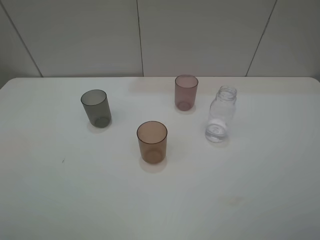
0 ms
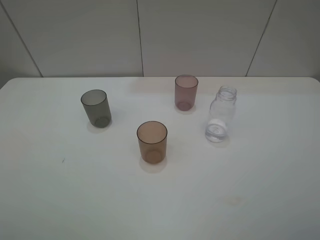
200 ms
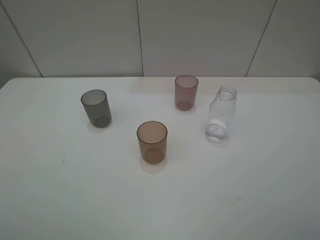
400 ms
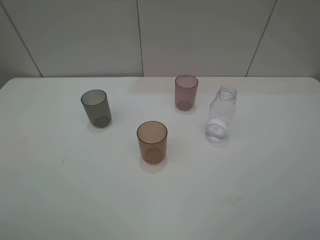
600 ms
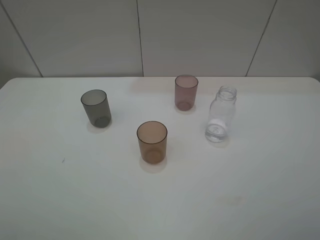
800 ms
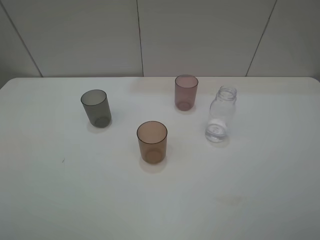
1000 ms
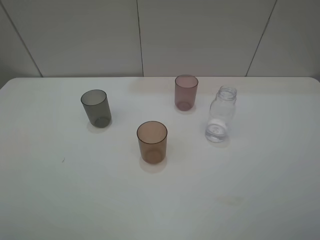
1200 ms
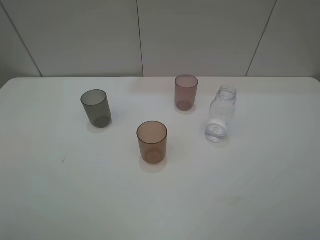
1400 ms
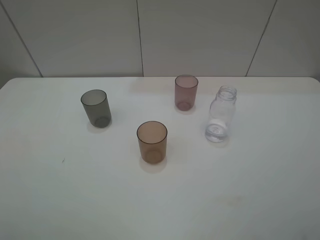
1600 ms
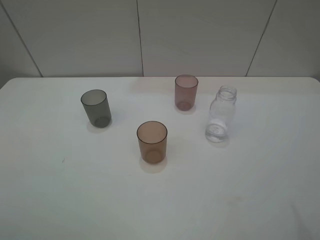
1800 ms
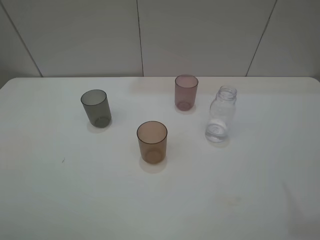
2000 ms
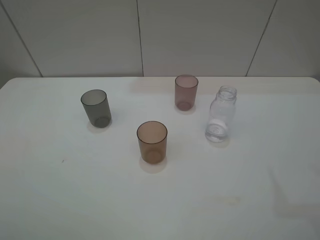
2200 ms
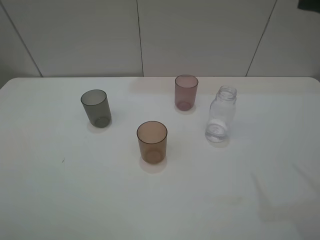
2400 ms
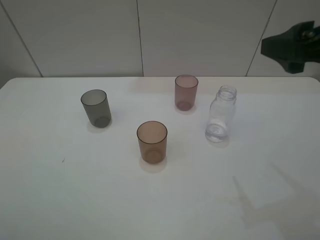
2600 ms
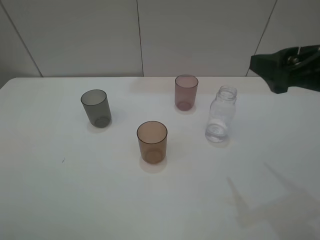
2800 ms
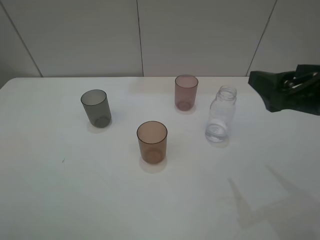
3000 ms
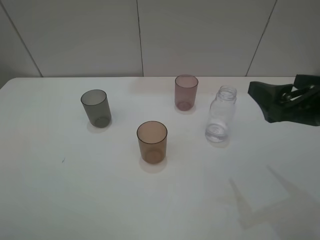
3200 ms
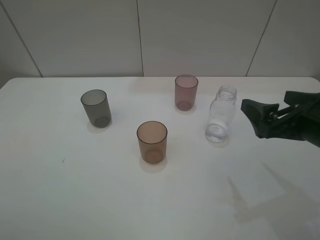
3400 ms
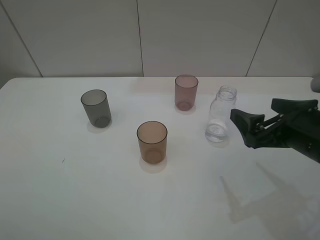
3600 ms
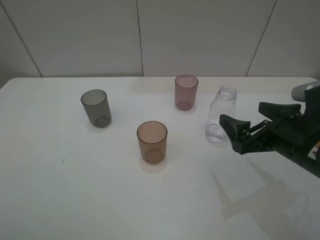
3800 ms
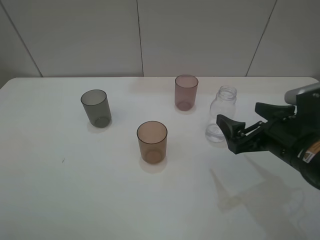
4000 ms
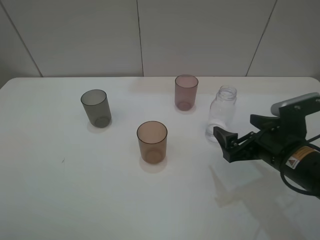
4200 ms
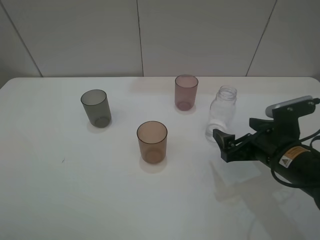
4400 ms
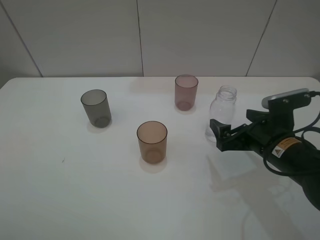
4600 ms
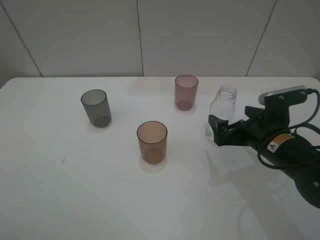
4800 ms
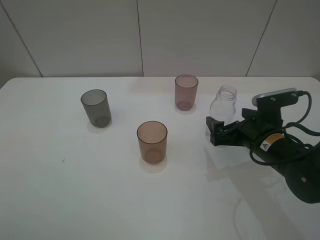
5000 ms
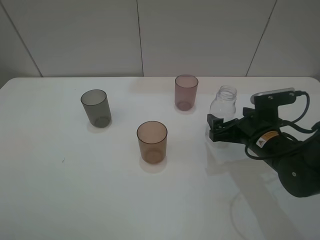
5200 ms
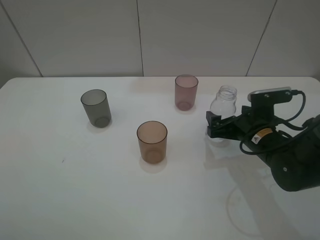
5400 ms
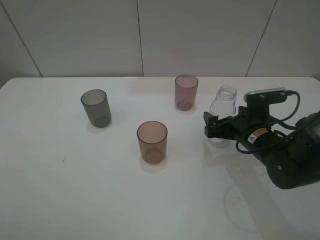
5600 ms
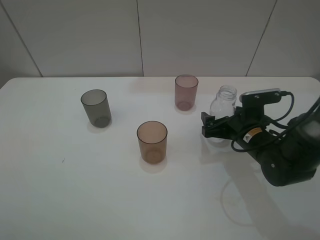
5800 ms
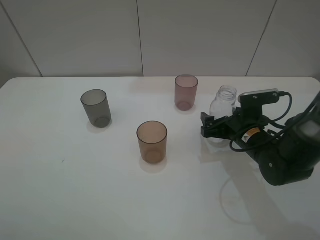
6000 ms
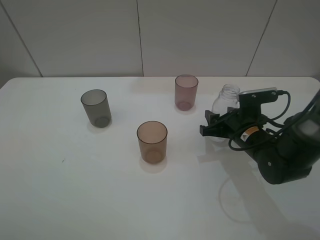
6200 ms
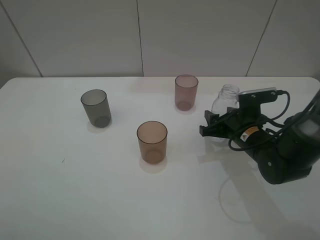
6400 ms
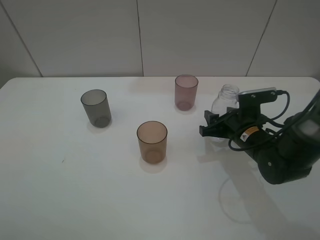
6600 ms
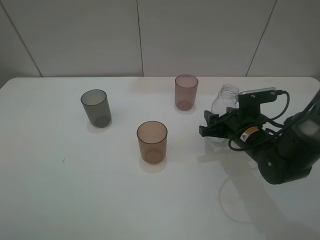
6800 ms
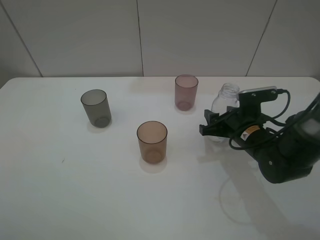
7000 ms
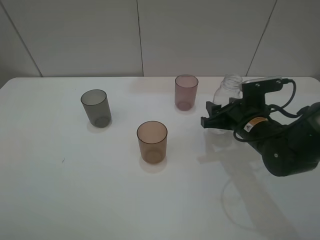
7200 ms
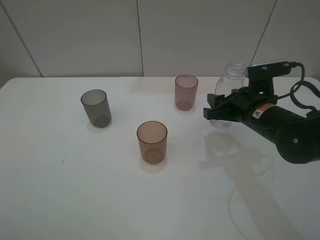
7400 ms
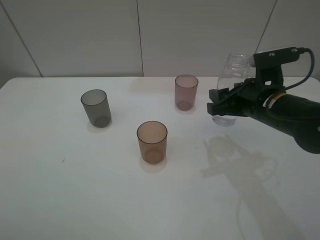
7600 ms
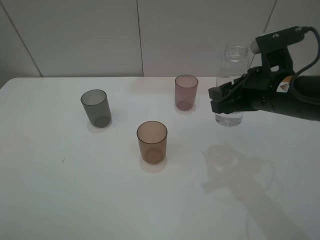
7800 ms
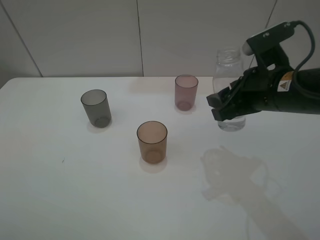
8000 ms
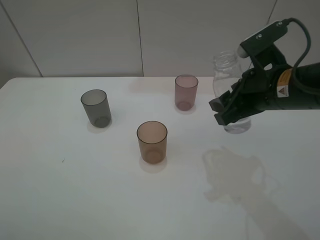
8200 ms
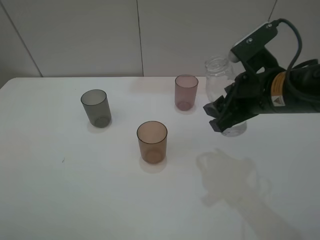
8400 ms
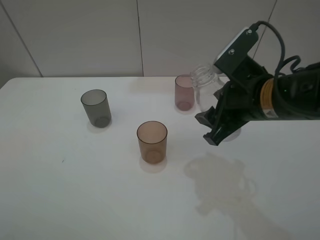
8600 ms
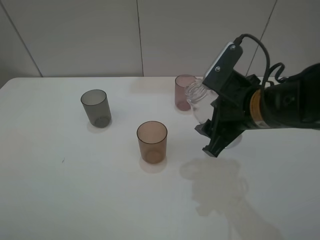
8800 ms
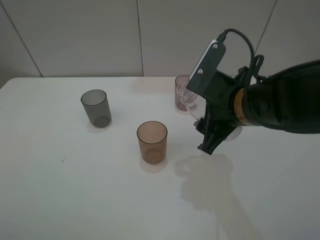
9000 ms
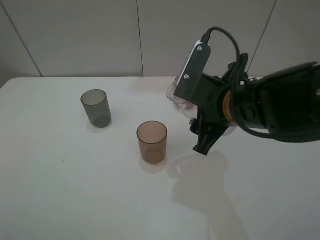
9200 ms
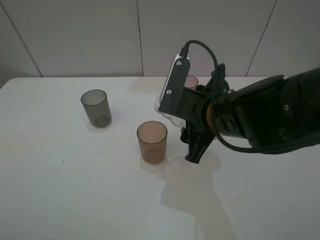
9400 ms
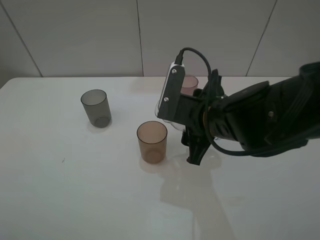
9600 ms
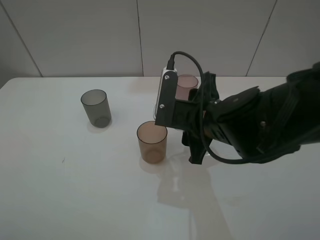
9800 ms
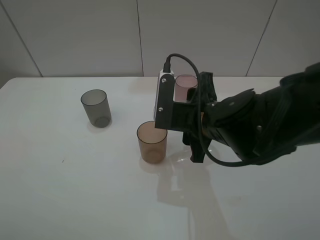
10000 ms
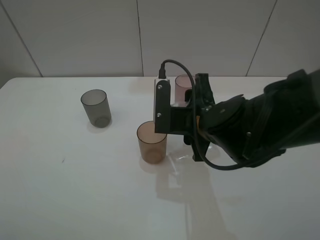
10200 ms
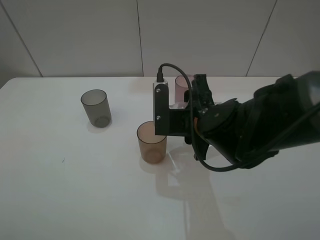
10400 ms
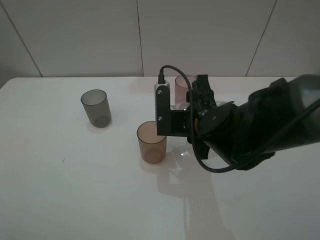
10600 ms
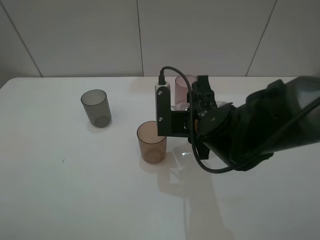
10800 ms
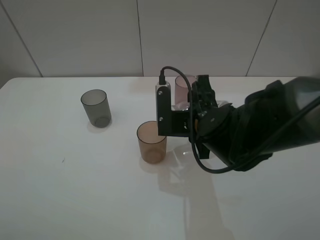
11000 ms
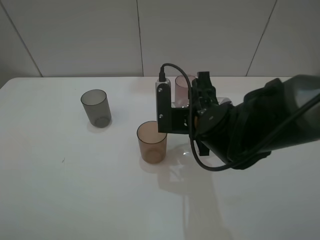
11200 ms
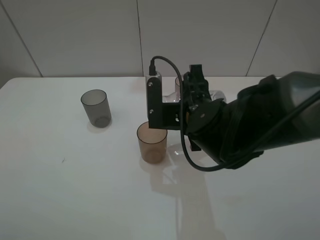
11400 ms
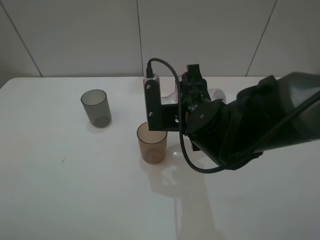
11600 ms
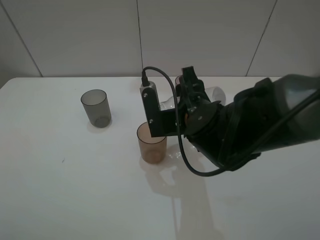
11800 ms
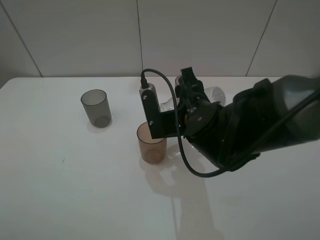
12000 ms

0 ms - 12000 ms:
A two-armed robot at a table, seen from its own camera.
Task of the whole recording: pick up the bottle filled with water and pour water into the middle cup of the three cups.
Step, 0 ms - 6800 ms: Grasp the transparent bottle with the right gripper.
1600 ms - 3000 ms: The right gripper heads forward, downward and to the left, covering some 15 cm.
3000 ms - 4400 ms: The right gripper is displaced downward by about 15 cm.
4400 ms - 6000 ms: The right gripper heads forward, covering about 5 cm.
6000 ms - 7600 ms: The right gripper travels upward by roughly 10 cm, and closes.
7600 ms - 9000 ms: The right gripper travels to the left by approximately 5 cm.
9000 ms - 10400 ms: The right gripper moves about 5 cm.
10400 ms - 12000 ms: There are only small adjustments of the grippers.

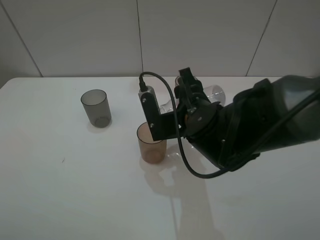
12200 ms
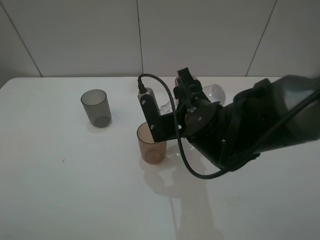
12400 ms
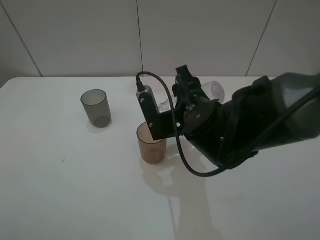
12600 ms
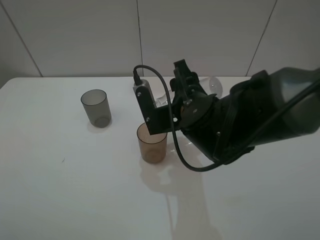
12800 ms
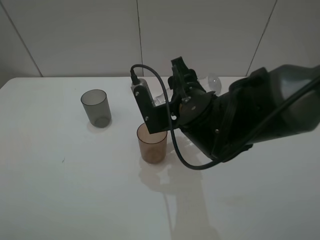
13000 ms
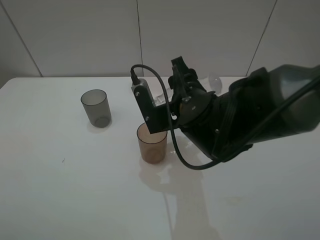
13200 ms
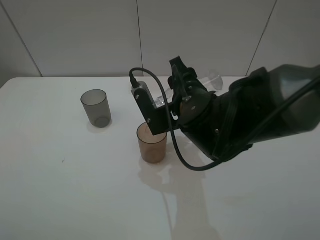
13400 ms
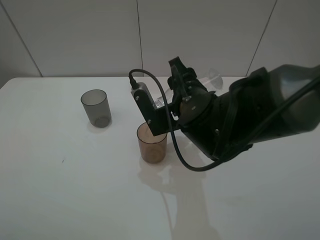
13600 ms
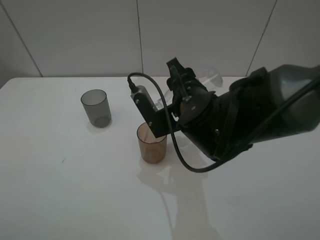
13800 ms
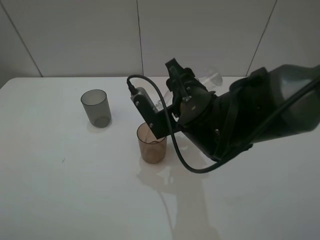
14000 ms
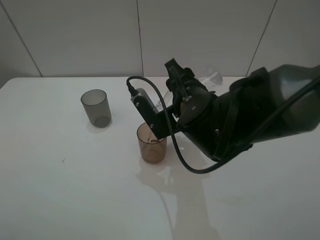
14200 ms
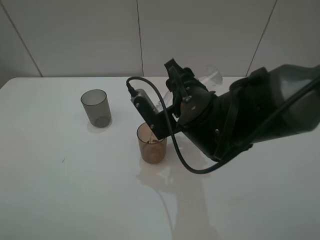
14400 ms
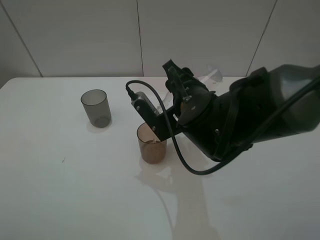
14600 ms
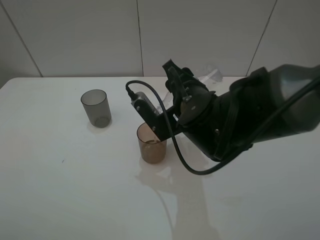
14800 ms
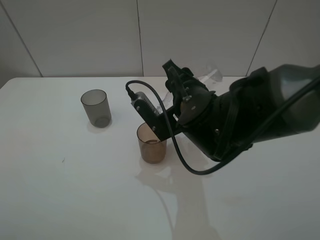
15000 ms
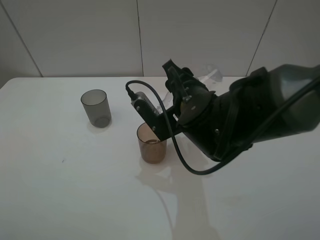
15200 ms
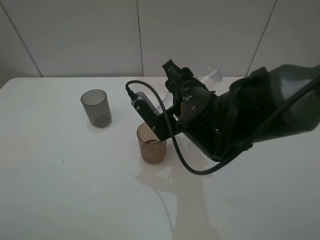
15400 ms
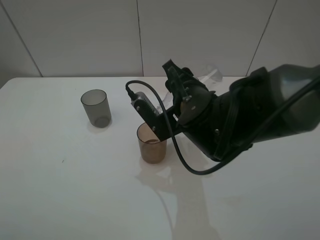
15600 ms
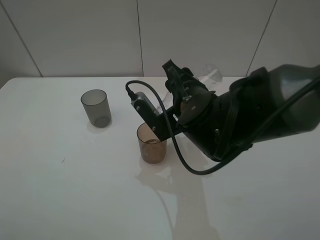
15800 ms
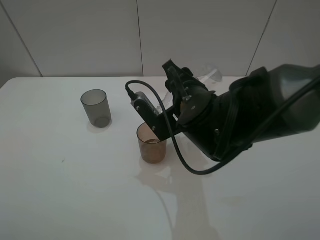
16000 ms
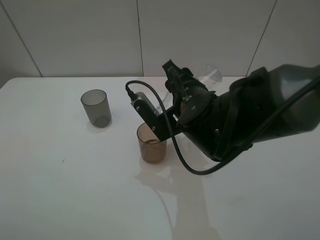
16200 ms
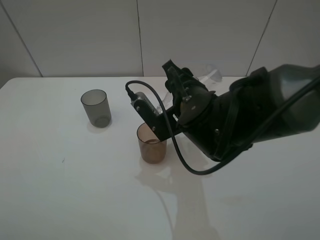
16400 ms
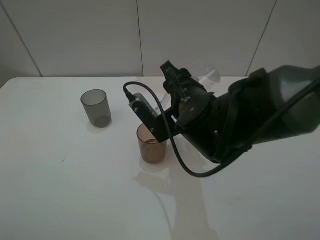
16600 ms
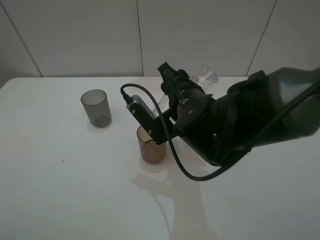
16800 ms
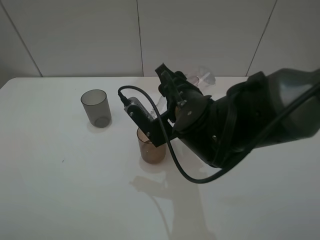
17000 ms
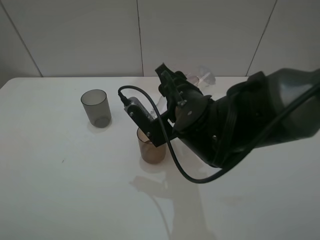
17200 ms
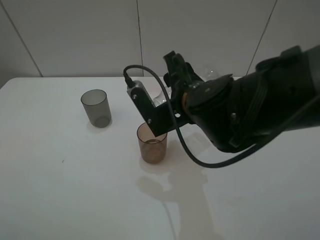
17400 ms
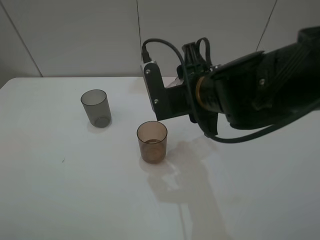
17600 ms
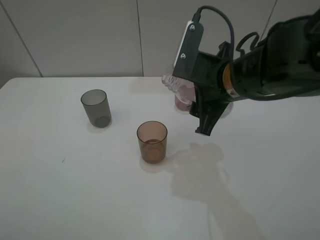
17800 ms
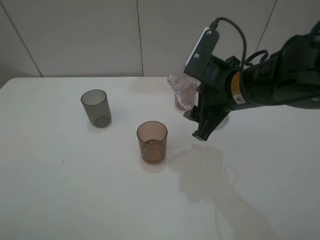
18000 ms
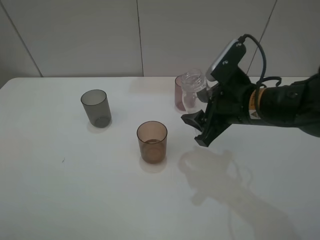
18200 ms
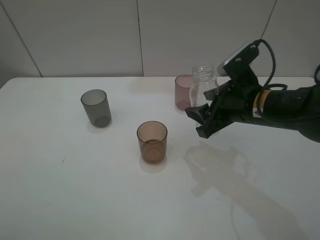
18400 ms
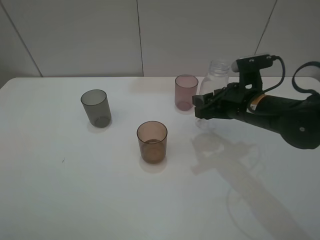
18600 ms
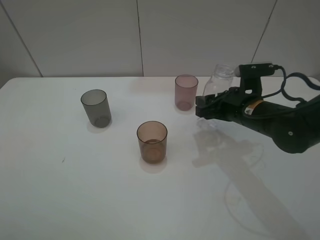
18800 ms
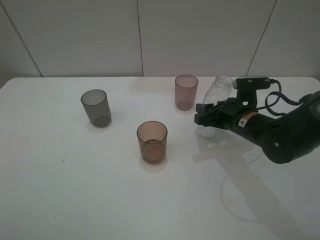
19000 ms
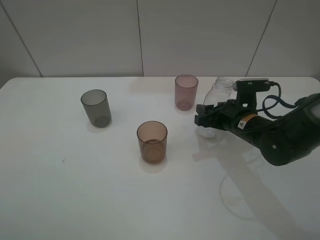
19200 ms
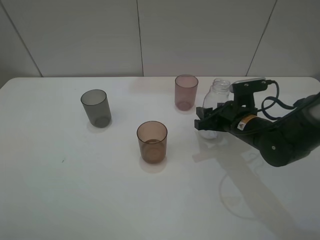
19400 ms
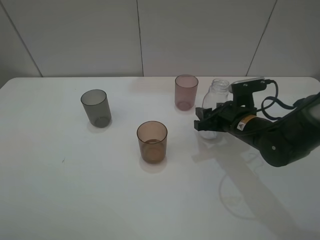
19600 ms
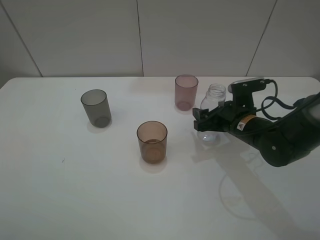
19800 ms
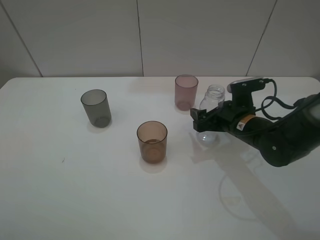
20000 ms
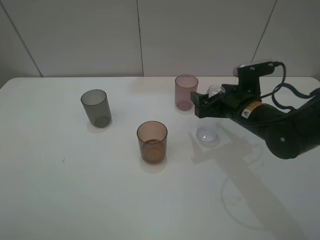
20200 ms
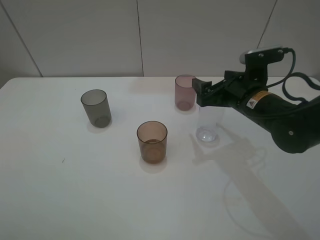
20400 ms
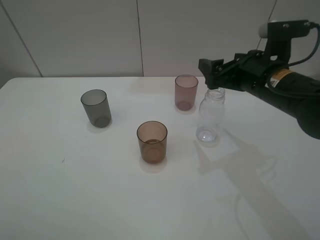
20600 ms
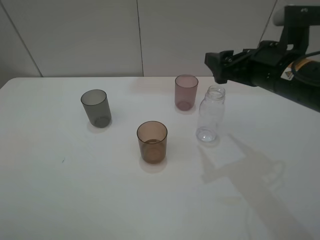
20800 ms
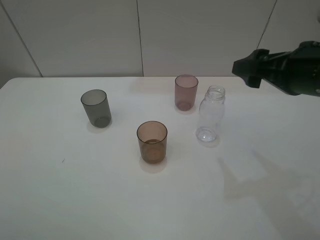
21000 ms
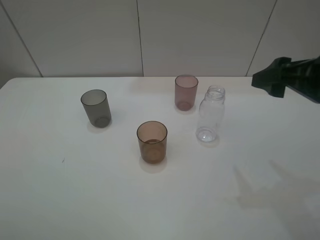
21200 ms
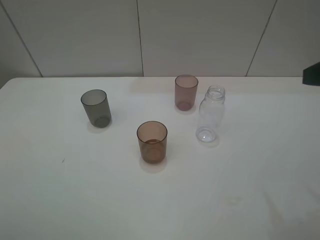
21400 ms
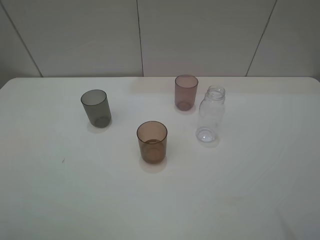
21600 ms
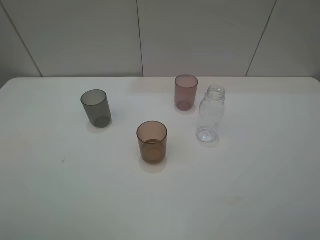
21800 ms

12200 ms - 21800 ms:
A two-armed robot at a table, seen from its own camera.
Task of the whole recording: pick up the bottle filled with water and pour water into the middle cup of the three cups.
Step, 12200 ms - 18000 ms: Pour water from transparent bottle tobrown cup with the right gripper.
Step, 18200 ms - 20800 ms: Place the transparent bottle with the right gripper.
12200 ms - 13800 ms: The grippers move only a little.
13800 ms - 15400 ms: The grippers move only a little.
15400 ms - 17000 ms: Both grippers stay put.
17000 ms - 18600 ms: The right gripper is displaced to the right by some 10 cm.
18600 ms - 20200 ms: The right gripper opens up.
20200 ms - 21800 ms: The right gripper moves upward, backward and to the right, some 35 cm.
